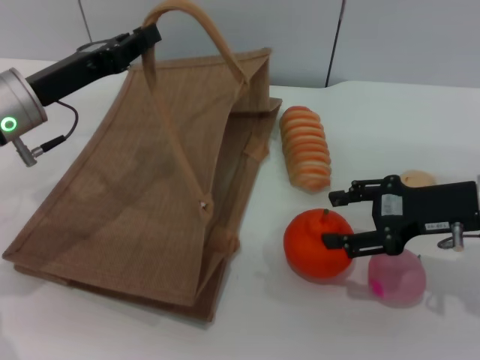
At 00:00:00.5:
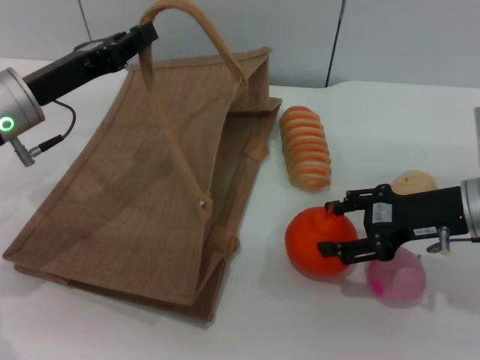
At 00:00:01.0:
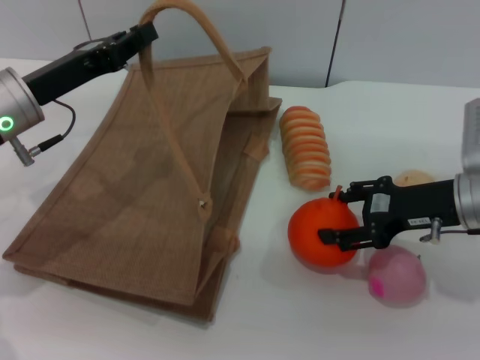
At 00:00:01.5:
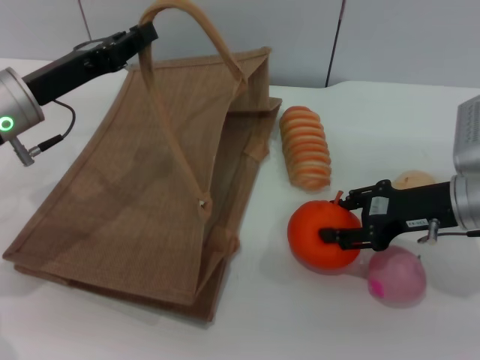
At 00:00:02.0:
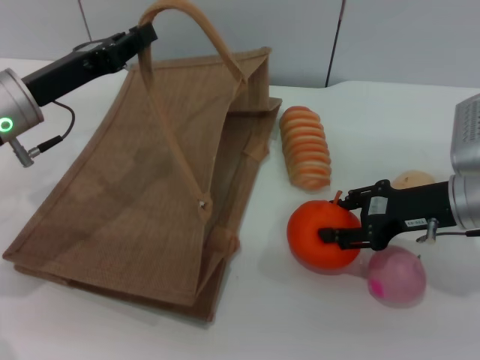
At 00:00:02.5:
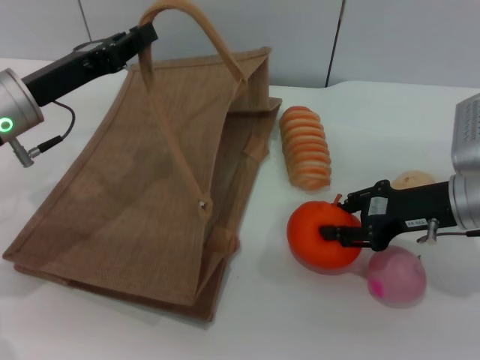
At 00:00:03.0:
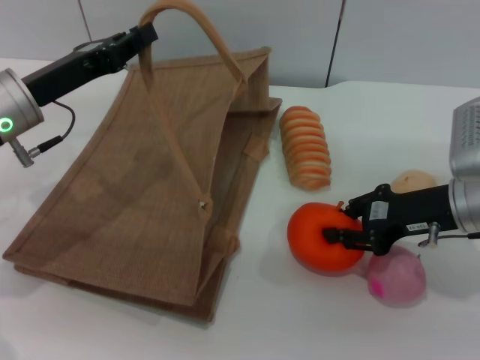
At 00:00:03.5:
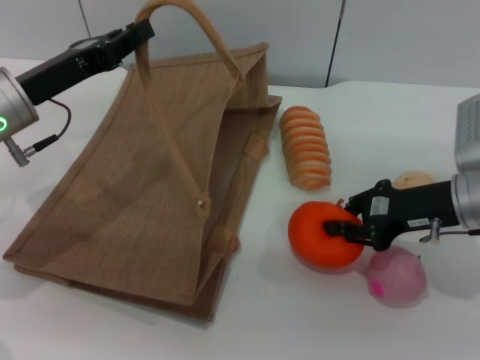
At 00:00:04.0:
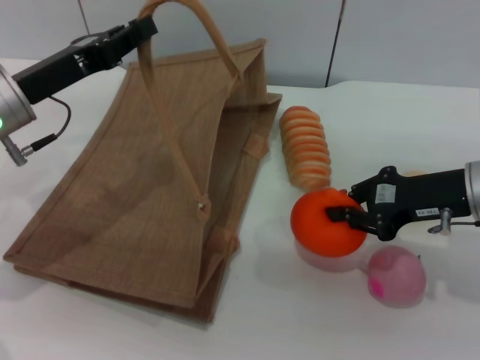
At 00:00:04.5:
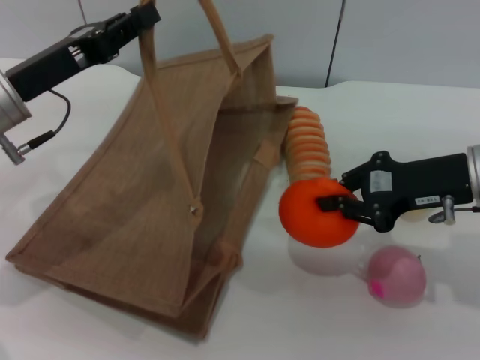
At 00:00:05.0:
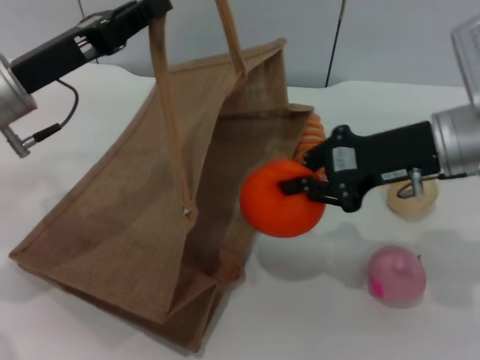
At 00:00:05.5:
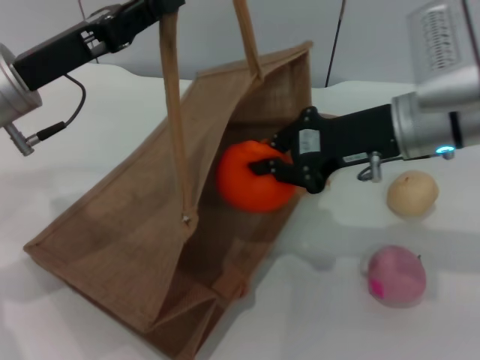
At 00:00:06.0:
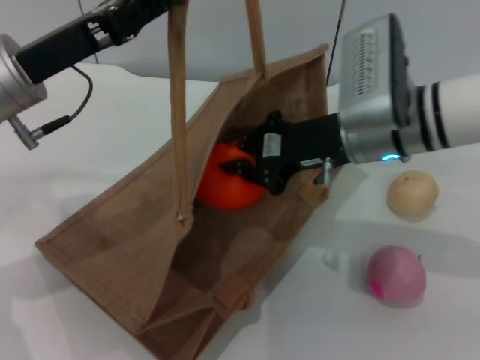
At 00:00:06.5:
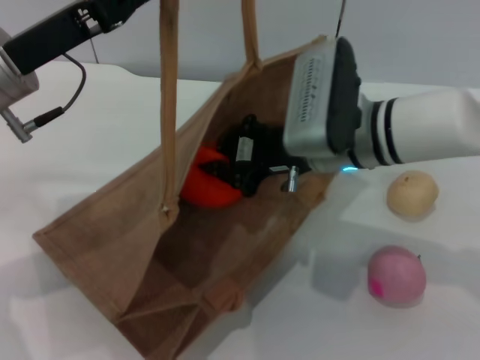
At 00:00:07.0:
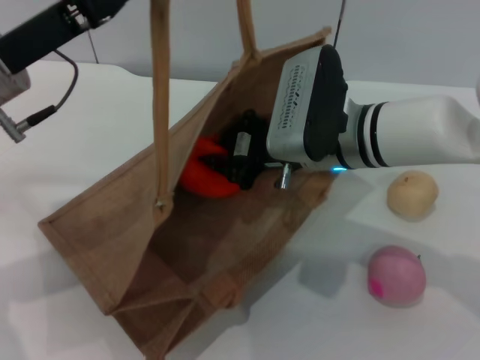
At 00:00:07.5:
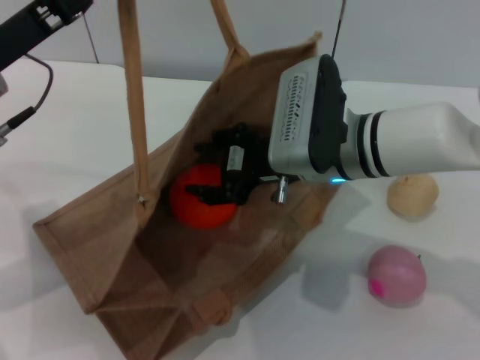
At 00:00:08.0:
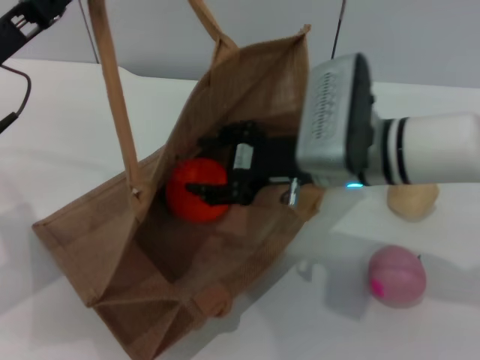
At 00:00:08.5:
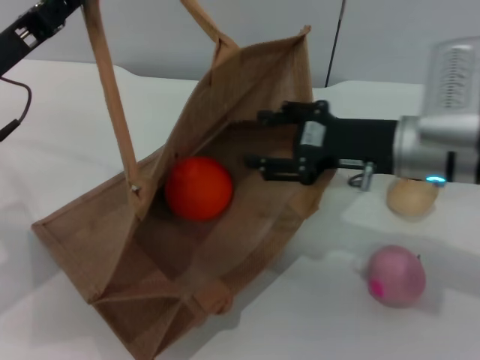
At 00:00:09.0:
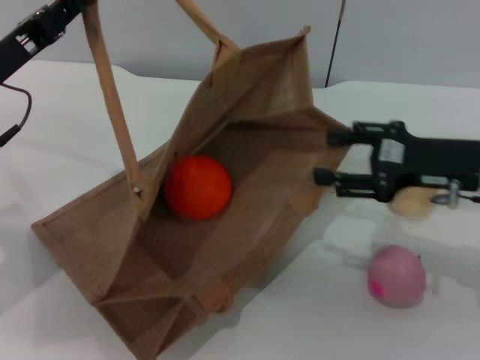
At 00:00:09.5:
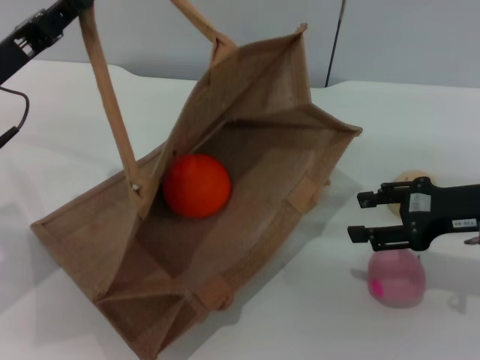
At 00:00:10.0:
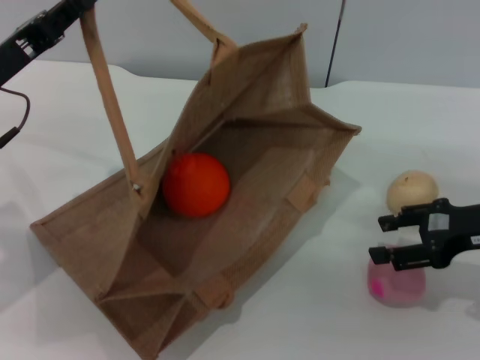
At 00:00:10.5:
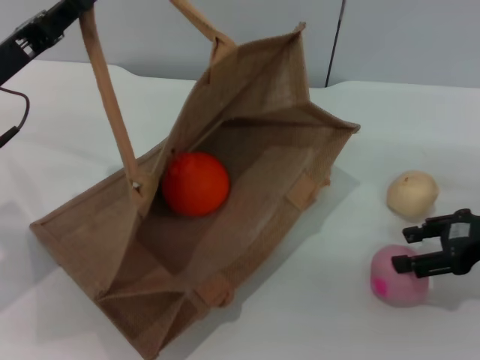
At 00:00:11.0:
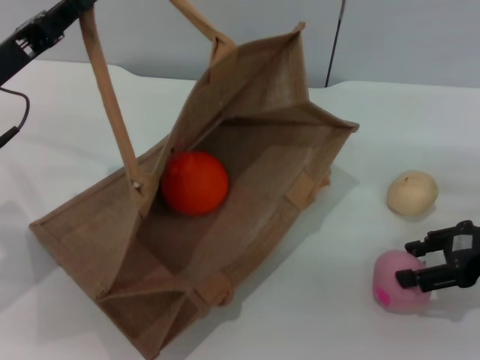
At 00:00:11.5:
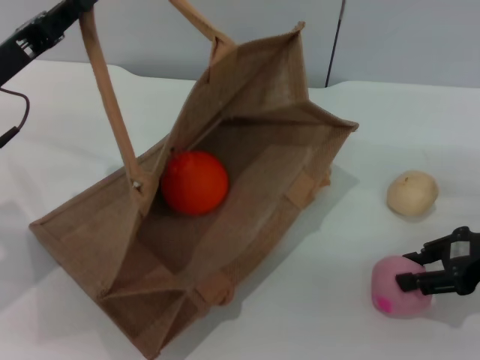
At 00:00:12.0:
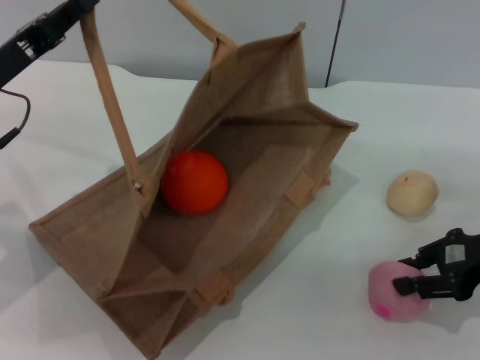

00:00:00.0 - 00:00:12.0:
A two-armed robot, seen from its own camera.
Task of the whole recording: pick up the orange and peach from the table and place it in the brown handbag.
Step, 00:00:00.0 - 00:00:04.5: Pick up the orange with the right gripper.
Step, 00:00:05.0 - 00:00:08.5: Place the orange into the woven bag with the right gripper.
00:00:00.0 - 00:00:02.0: The grippers make only small movements.
00:00:02.0 - 00:00:04.0: The right gripper closes its fingers.
00:00:04.0 - 00:00:06.0: The right gripper travels to the left by about 10 cm.
00:00:06.0 - 00:00:08.0: The right gripper opens up.
00:00:08.0 - 00:00:10.0: The right gripper travels to the right by approximately 20 cm.
00:00:10.0 - 00:00:12.0: The right gripper closes.

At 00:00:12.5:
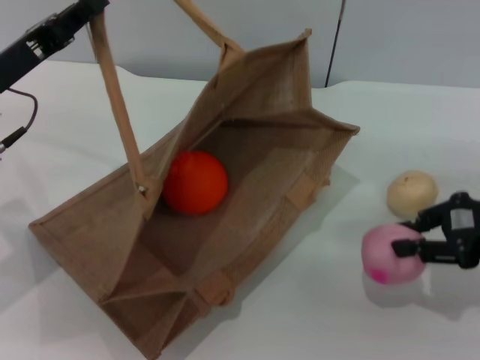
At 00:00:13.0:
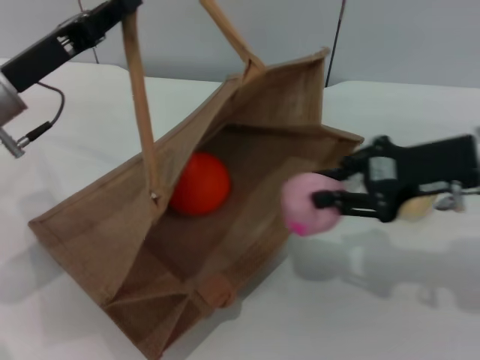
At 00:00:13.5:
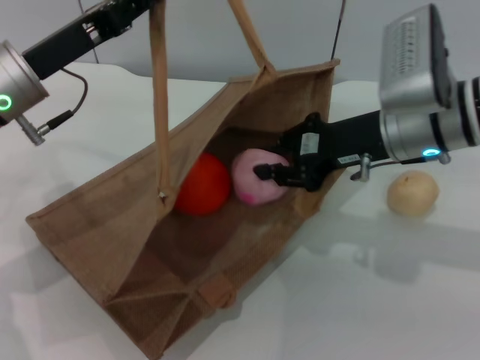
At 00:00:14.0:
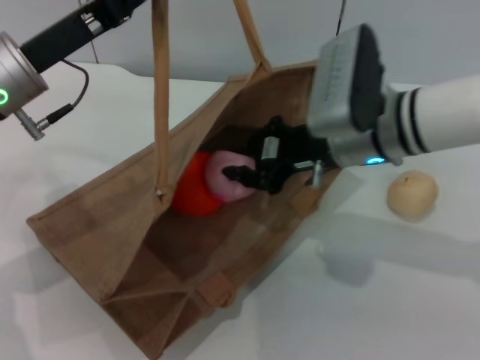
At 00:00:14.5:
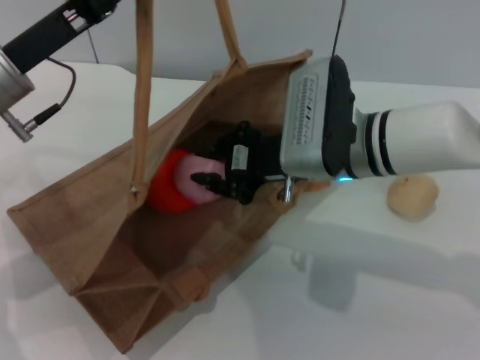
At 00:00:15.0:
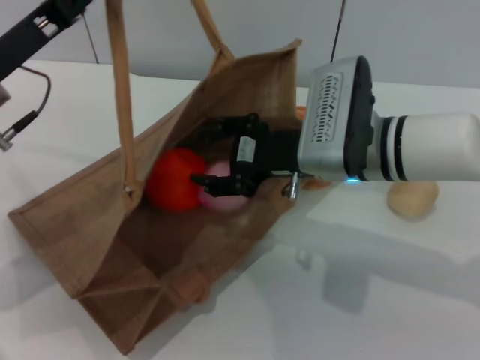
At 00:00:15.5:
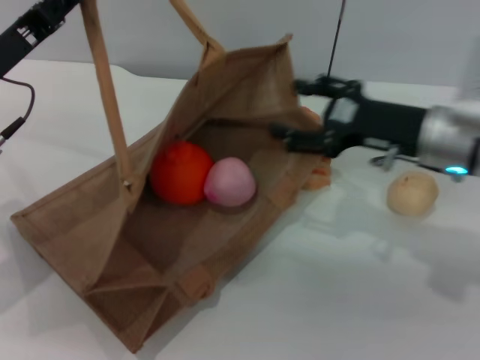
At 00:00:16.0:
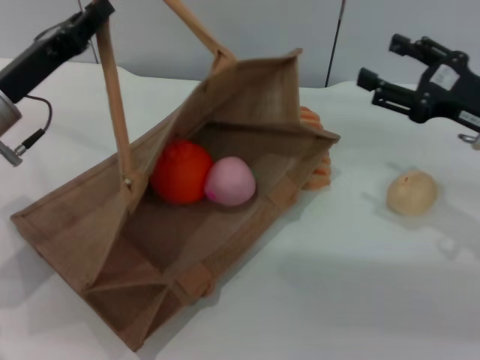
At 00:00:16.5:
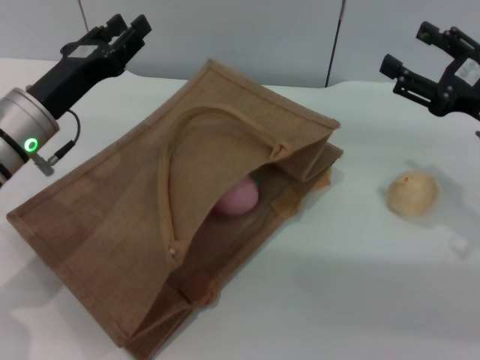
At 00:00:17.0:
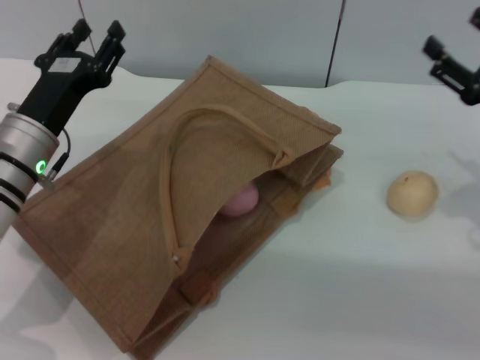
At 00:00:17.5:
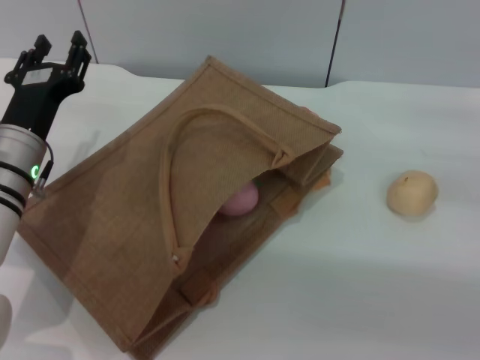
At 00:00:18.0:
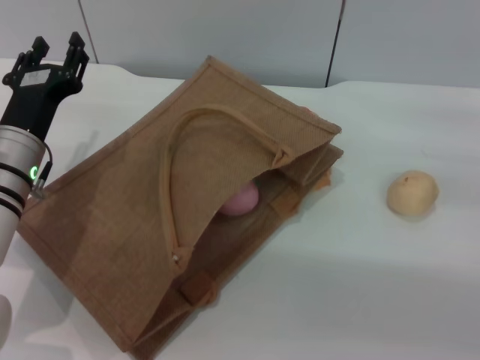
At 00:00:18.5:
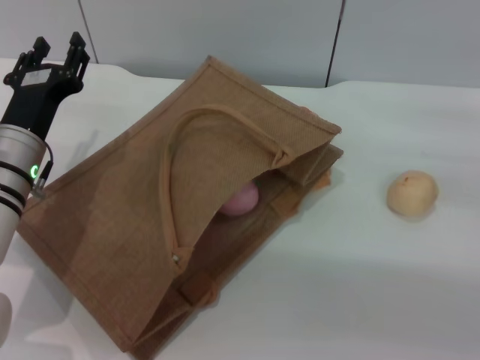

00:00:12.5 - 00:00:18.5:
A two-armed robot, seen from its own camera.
Task of the whole recording: pick up the orange and peach from the table and place it in the brown handbag.
Step, 00:00:13.0 - 00:00:15.5: Place the peach into the woven bag with the right gripper.
Step, 00:00:16.0 - 00:00:17.0: Lower the woven bag with the left gripper to close it.
00:00:12.5 - 00:00:14.5: The right gripper heads to the left, covering some 20 cm.
00:00:14.5 - 00:00:16.5: The right gripper shifts roughly 20 cm to the right, and opens its fingers, while the left gripper moves downward, some 5 cm, and opens up.
00:00:16.5 - 00:00:18.5: The right gripper changes place by approximately 5 cm.
